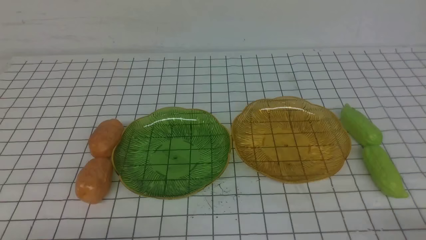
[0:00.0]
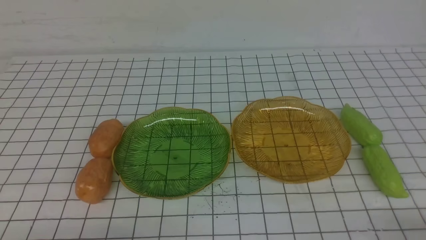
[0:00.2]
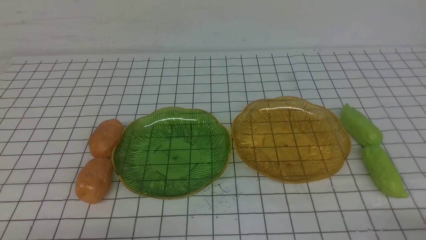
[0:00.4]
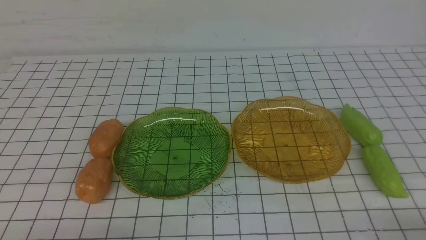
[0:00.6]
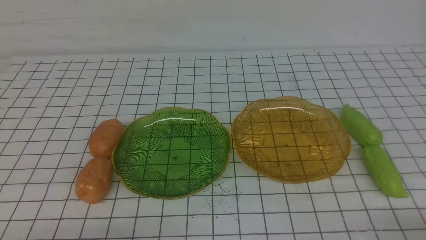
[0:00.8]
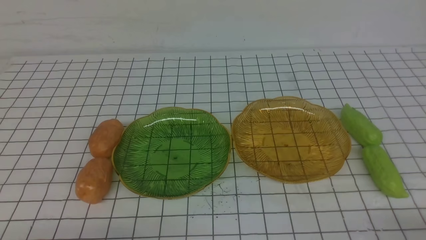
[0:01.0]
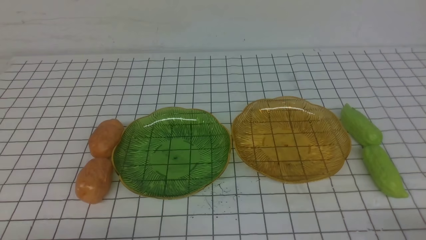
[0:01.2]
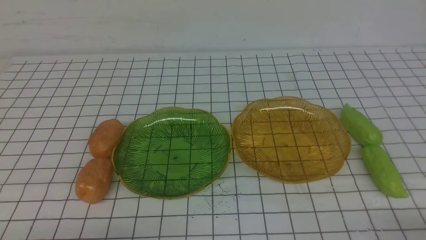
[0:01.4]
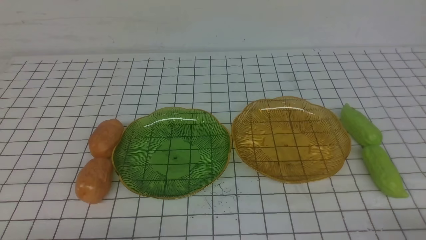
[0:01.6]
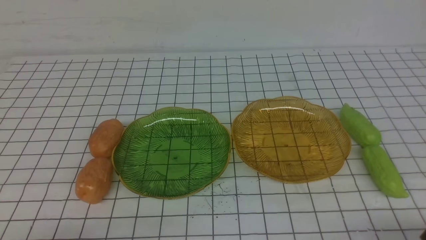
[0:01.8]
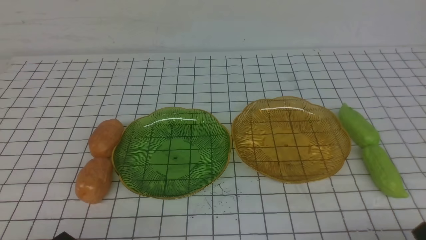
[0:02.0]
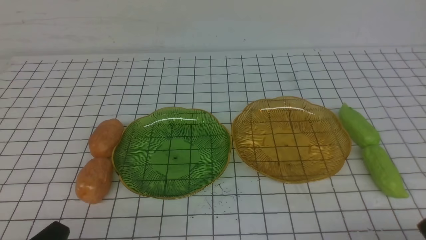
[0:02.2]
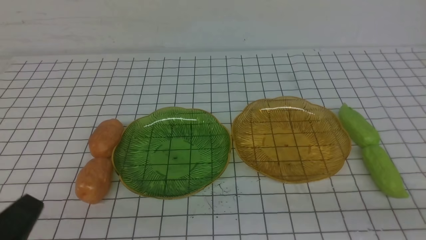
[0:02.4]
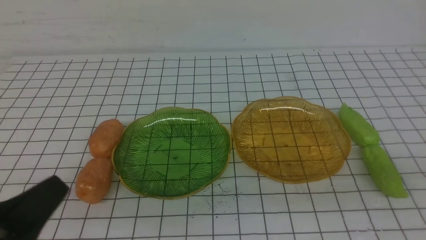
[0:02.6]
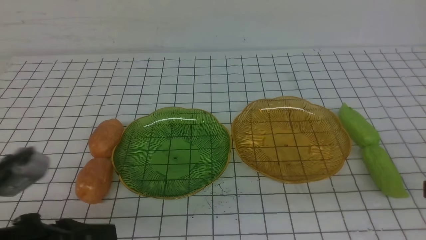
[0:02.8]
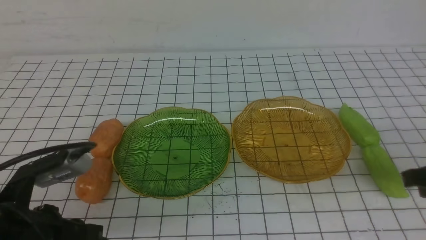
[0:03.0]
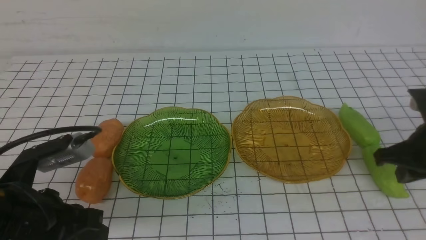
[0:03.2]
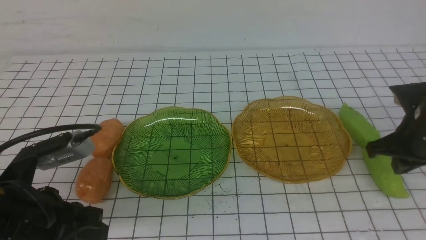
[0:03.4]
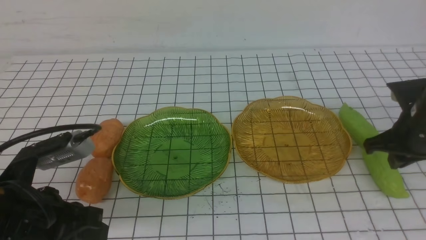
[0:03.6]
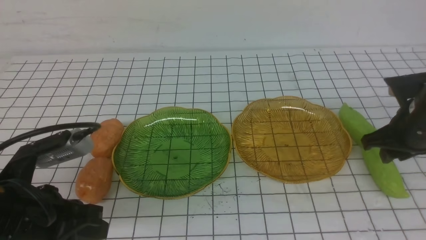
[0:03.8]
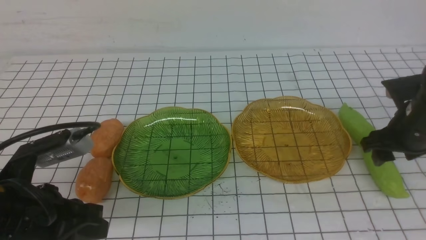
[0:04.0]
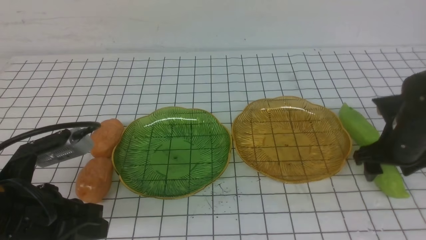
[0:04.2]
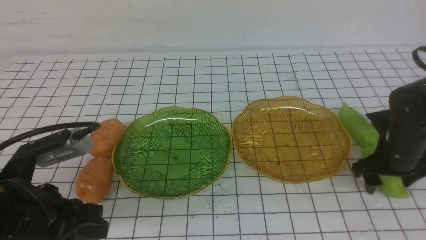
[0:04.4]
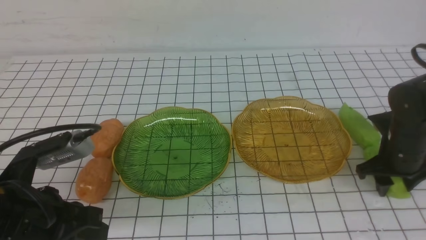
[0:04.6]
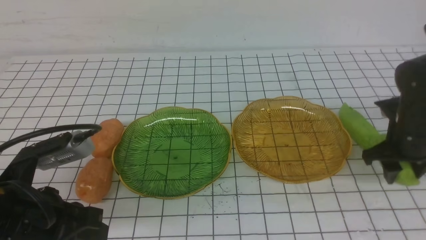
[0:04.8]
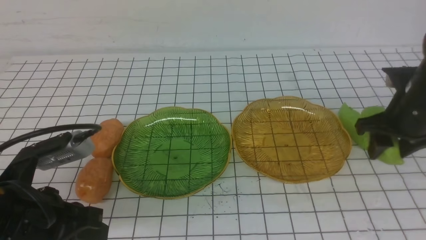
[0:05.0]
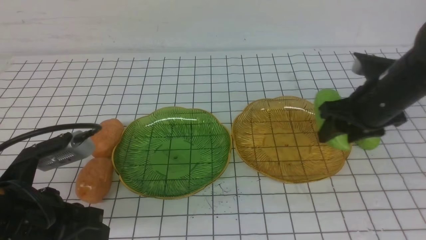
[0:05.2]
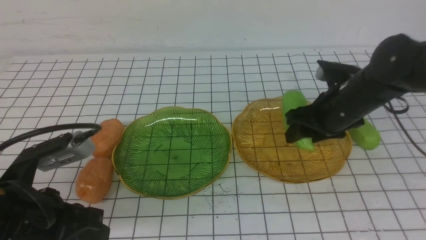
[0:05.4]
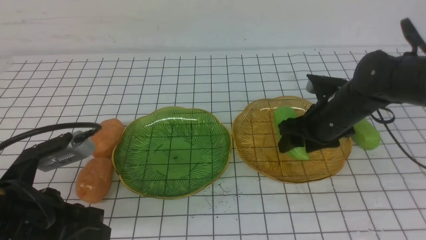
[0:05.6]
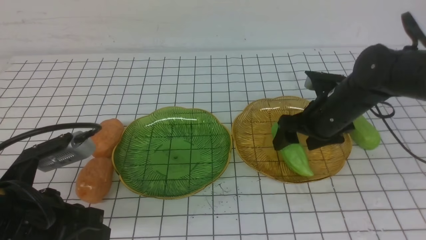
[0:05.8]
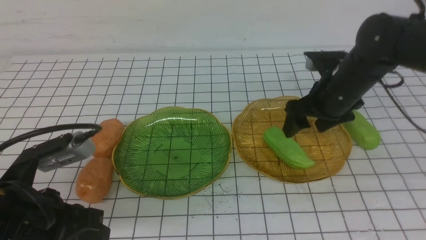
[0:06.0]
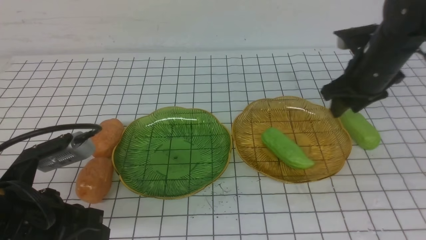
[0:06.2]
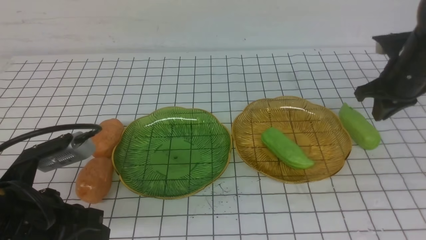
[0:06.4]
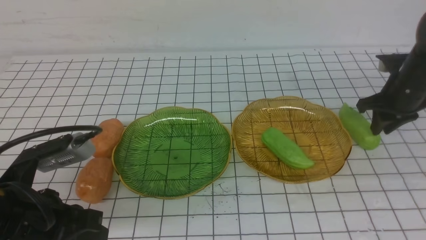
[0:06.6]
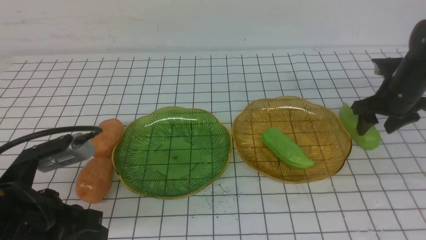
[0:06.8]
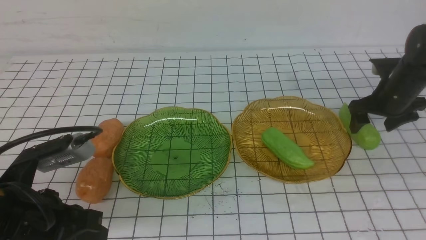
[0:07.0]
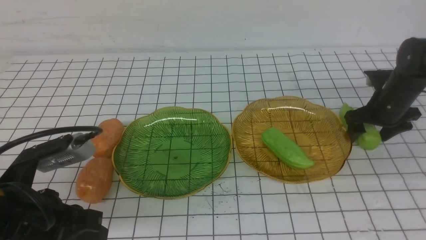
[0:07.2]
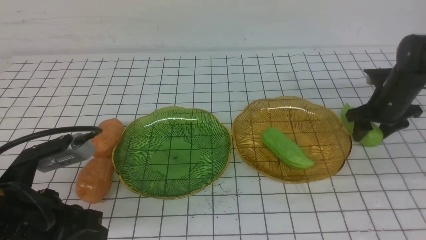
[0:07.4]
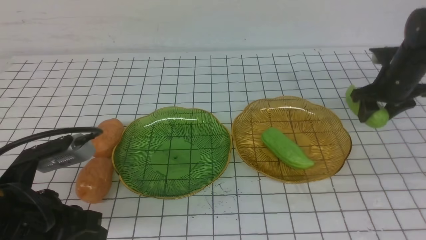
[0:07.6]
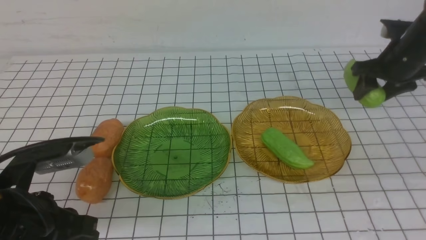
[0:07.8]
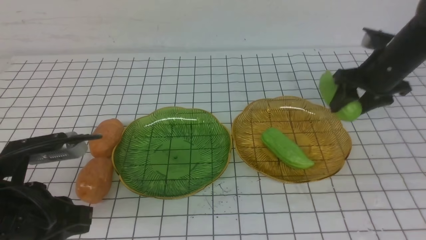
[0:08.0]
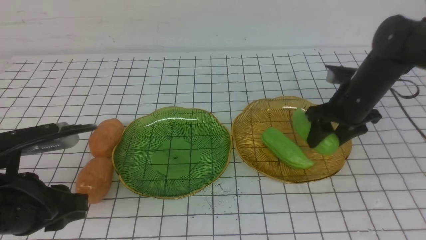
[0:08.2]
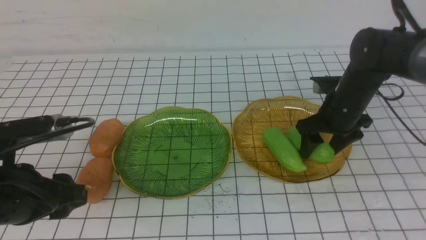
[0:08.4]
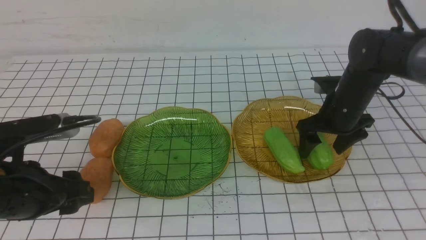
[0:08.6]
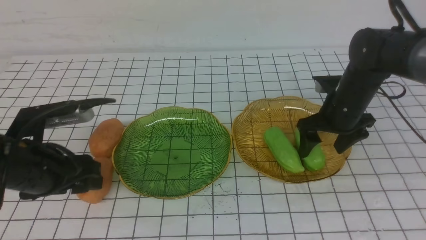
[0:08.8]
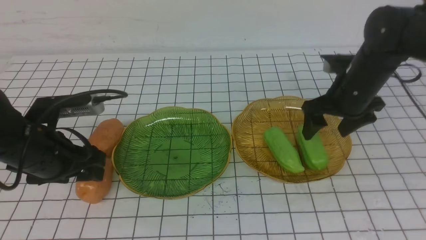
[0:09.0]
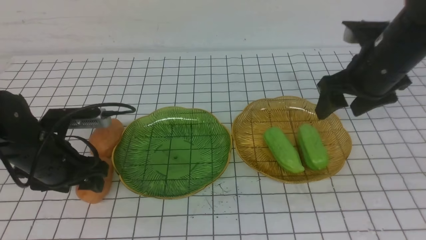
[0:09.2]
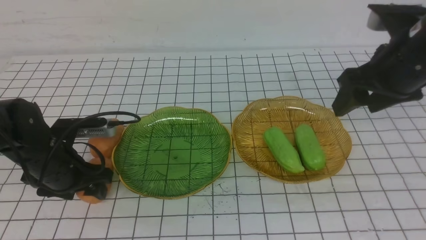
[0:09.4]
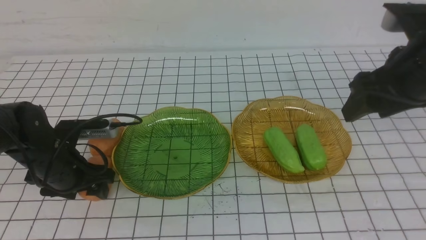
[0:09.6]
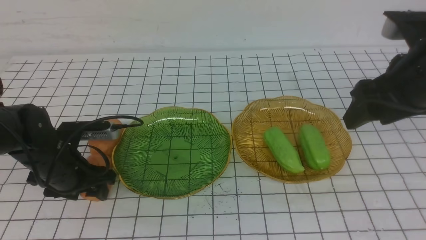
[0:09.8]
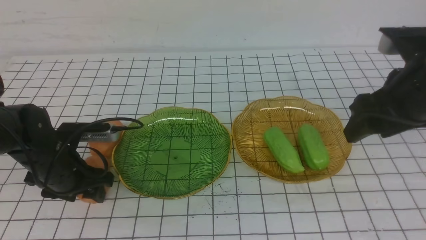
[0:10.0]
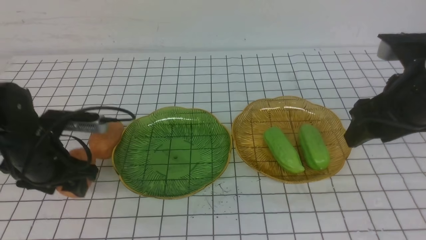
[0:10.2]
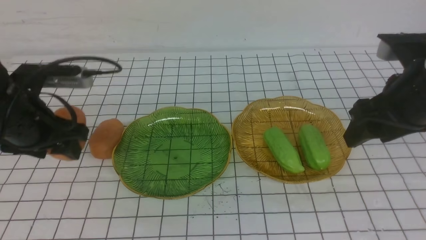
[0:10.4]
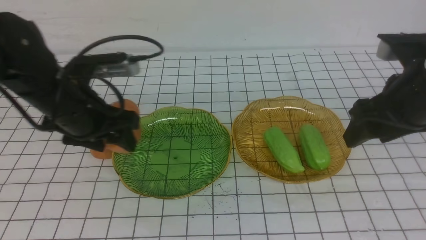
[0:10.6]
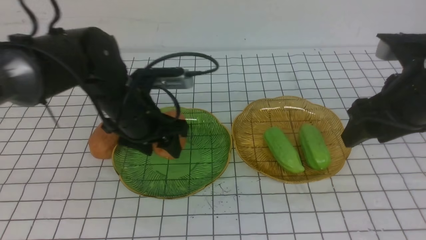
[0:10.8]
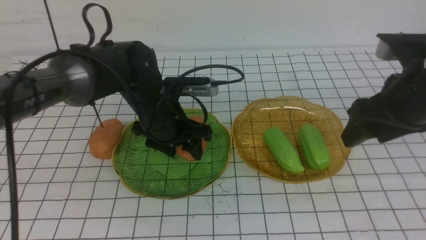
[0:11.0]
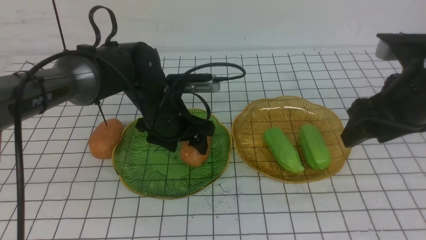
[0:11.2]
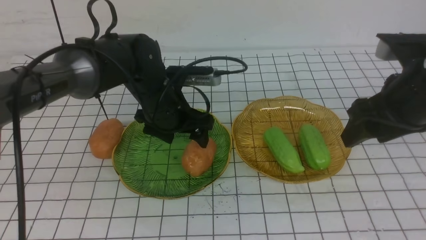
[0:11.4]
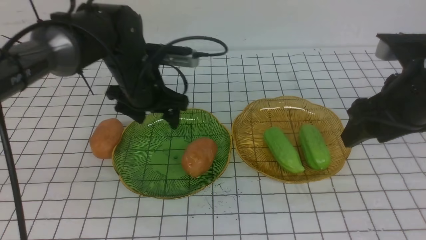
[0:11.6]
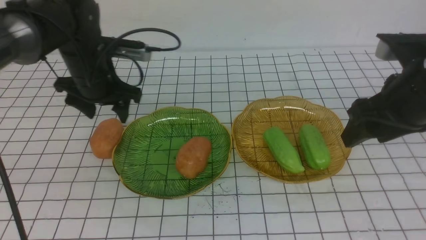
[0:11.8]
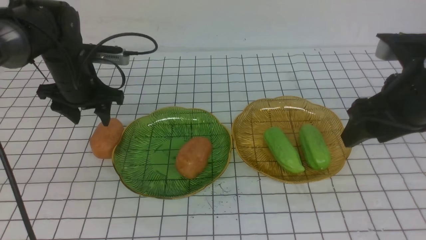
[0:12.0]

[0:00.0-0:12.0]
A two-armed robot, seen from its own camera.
Step, 0:00.0 to 0:09.0: use the right arm to grab a chayote and put it into the right plate.
0:01.6 to 0:03.0: The right gripper is displaced forward and upward by approximately 20 cm. The left gripper moves upward and forward, about 10 cm.
0:03.0 to 0:04.4: The right gripper moves forward and downward, roughly 15 cm, and opens up.
0:04.4 to 0:06.0: The right gripper goes some 15 cm to the left, upward and forward.
0:06.0 to 0:07.6: The right gripper travels to the right and forward by approximately 15 cm, and closes and opens again.
0:07.6 to 0:09.0: The left gripper shifts about 10 cm forward, and opens its fingers; the right gripper is displaced to the left and backward by approximately 10 cm.
0:09.0 to 0:10.4: The left gripper ends up roughly 5 cm from where it was; the right gripper moves backward and upward, some 10 cm.
0:10.4 to 0:12.0: The left gripper is displaced forward by roughly 15 cm, and reaches about 15 cm to the right, then returns.

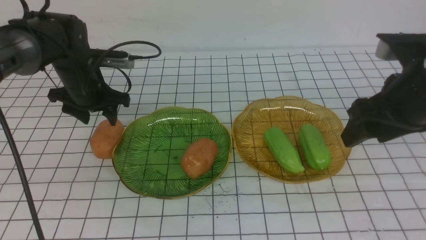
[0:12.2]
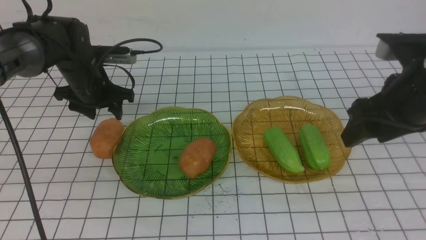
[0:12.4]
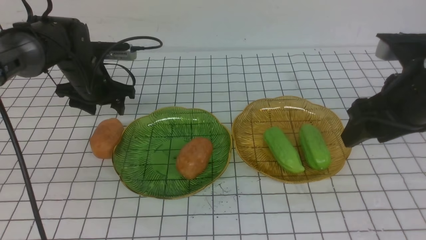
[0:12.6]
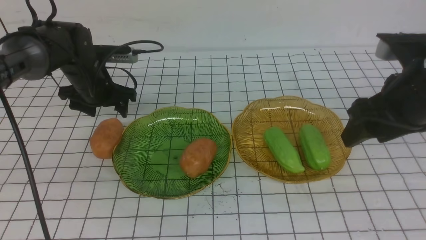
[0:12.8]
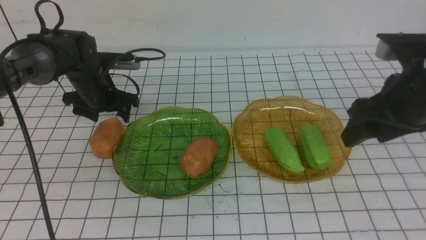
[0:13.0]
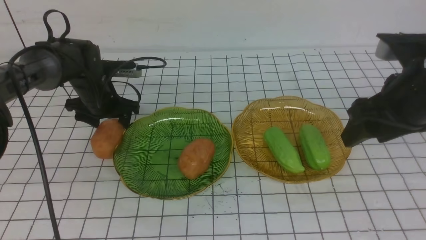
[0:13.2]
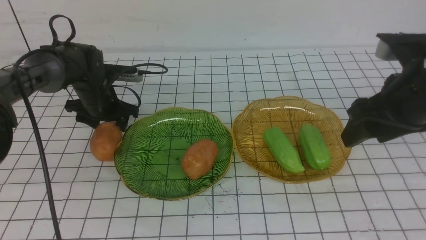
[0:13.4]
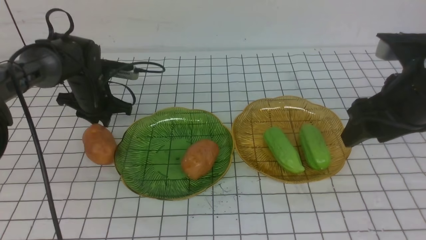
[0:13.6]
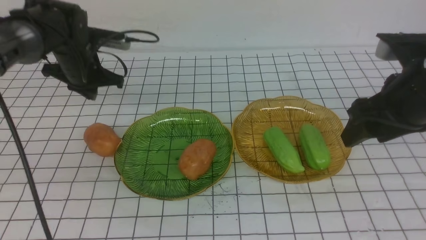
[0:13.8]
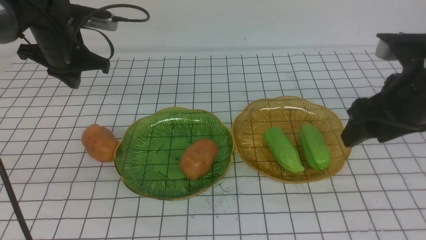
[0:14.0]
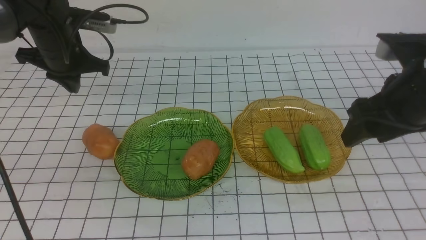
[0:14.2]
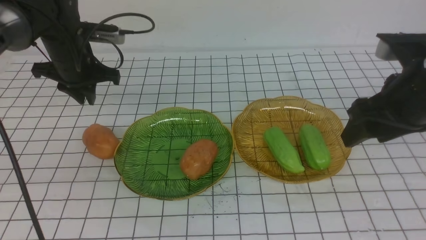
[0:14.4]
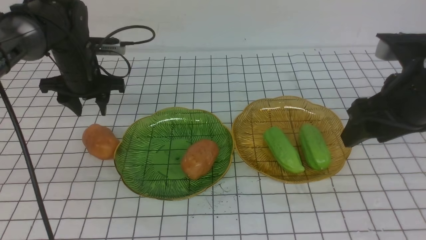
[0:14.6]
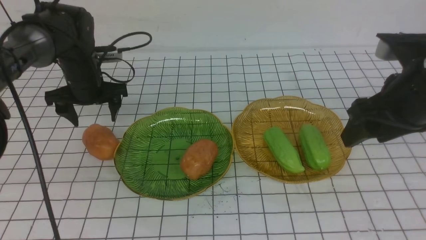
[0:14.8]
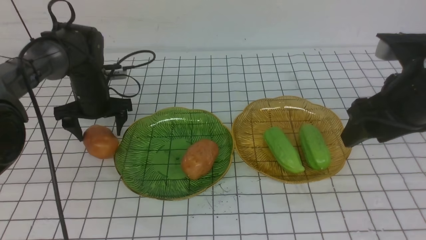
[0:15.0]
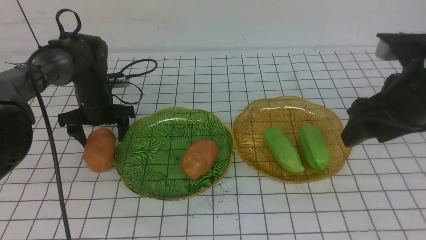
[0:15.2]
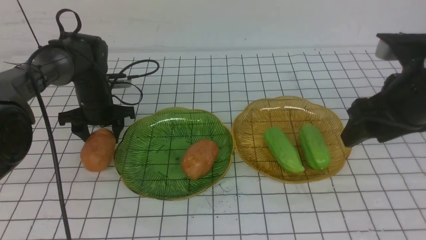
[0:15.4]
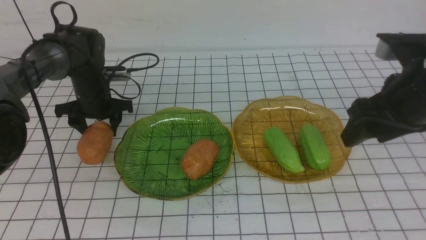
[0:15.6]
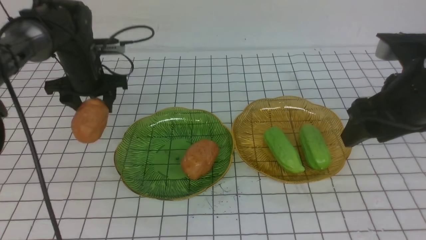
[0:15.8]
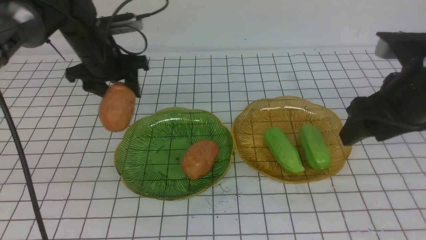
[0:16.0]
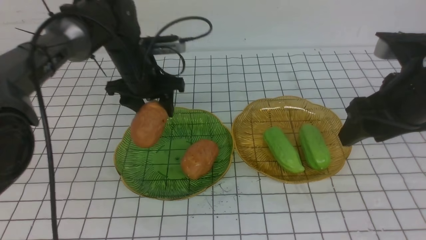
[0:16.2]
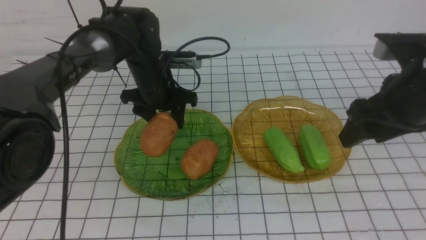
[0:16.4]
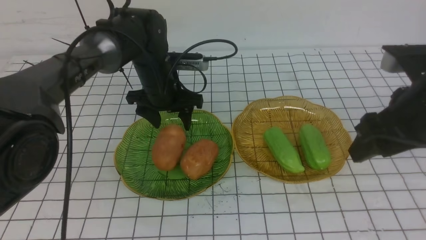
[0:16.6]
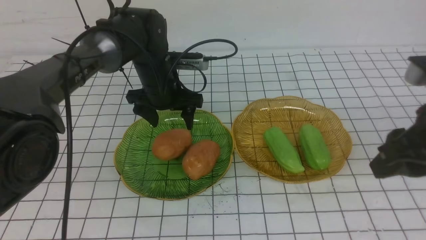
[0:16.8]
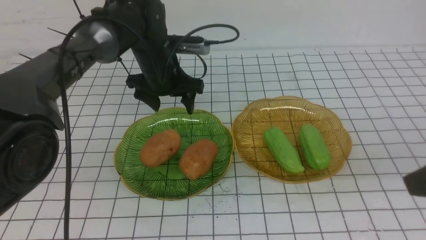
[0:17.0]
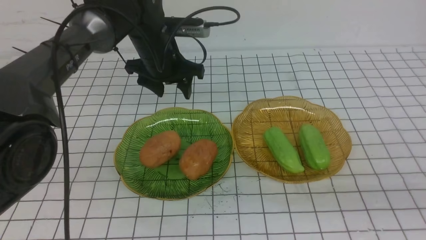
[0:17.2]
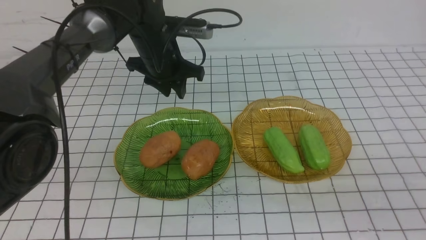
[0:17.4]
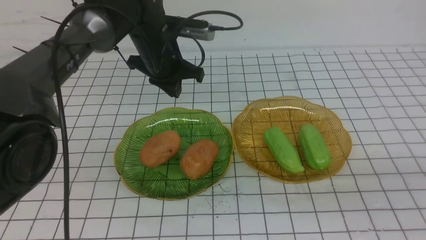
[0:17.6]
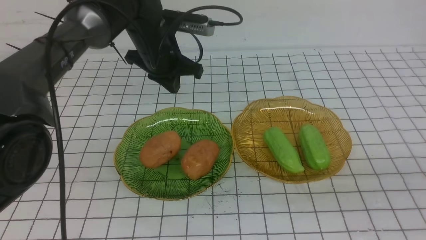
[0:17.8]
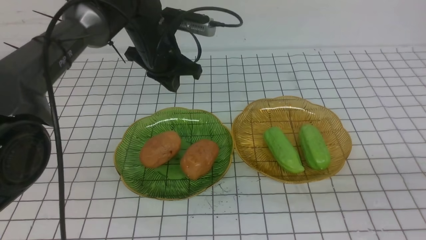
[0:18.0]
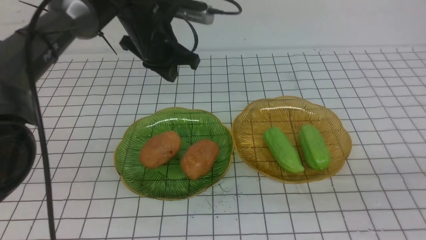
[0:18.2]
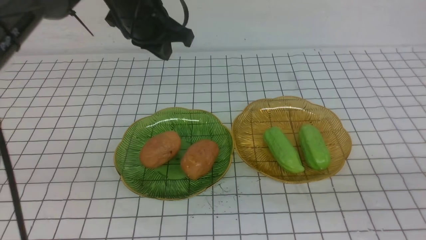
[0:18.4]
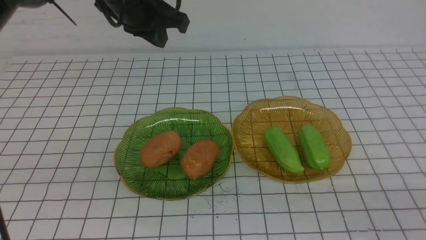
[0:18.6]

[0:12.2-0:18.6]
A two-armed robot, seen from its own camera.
Step, 0:12.2 to 0:16.8: Grab a potato with your left arm and put it on the left plate.
0:12.2 to 0:13.8: The left gripper goes downward and returns, about 5 cm each way, and closes.
0:13.8 to 0:15.4: The left gripper moves downward, about 10 cm, and opens up.
0:15.4 to 0:17.0: The right gripper travels backward by some 15 cm, and closes its fingers. Meanwhile the left gripper shifts approximately 15 cm to the right and upward.
0:17.0 to 0:18.6: The left gripper travels upward by approximately 15 cm, and closes its fingers, while the right gripper moves downward and backward, some 15 cm.
